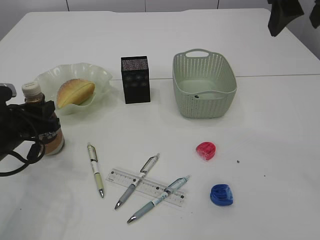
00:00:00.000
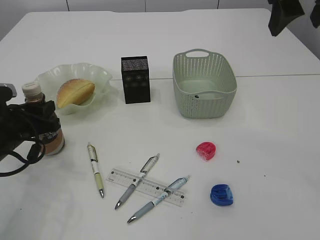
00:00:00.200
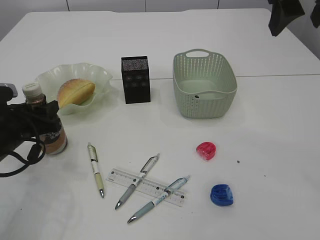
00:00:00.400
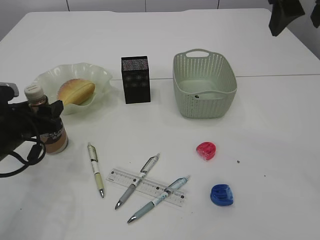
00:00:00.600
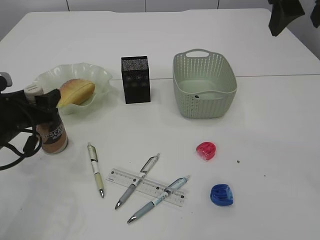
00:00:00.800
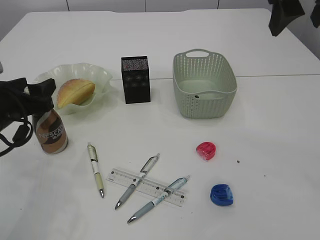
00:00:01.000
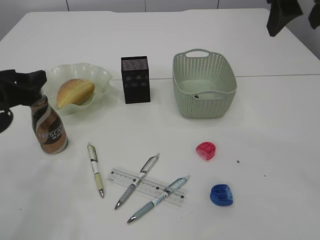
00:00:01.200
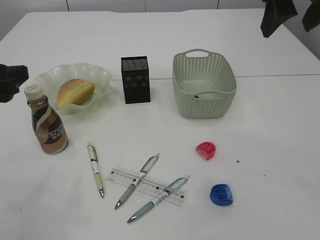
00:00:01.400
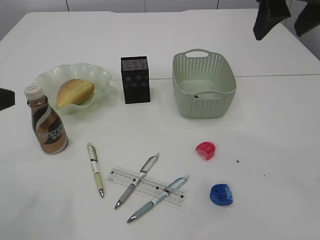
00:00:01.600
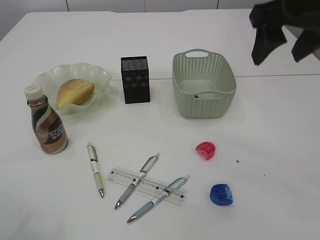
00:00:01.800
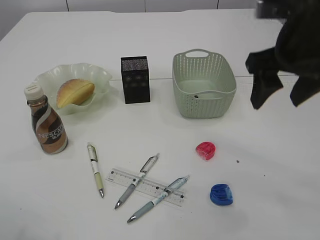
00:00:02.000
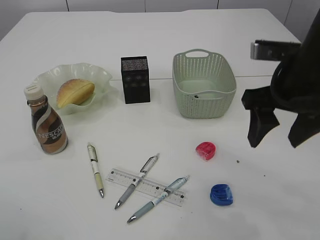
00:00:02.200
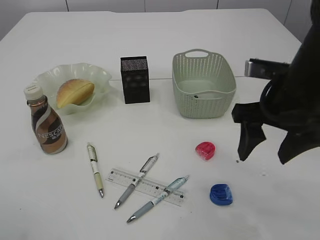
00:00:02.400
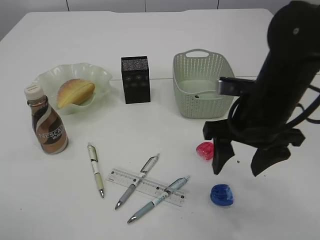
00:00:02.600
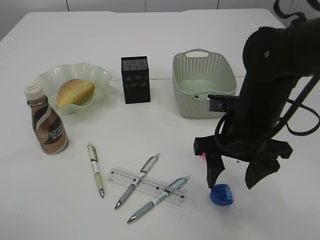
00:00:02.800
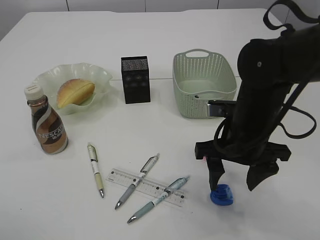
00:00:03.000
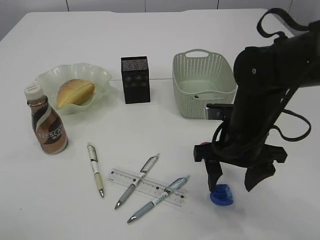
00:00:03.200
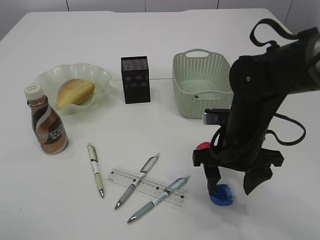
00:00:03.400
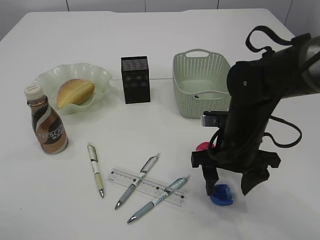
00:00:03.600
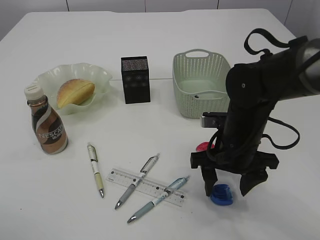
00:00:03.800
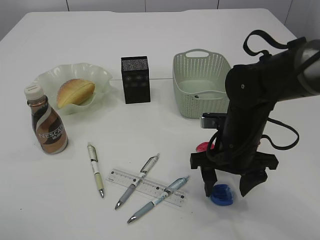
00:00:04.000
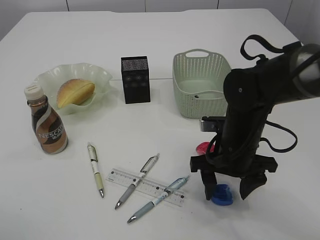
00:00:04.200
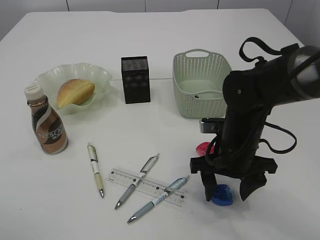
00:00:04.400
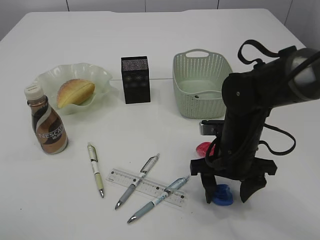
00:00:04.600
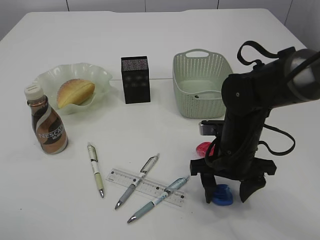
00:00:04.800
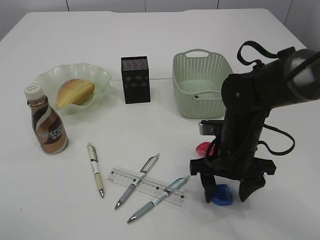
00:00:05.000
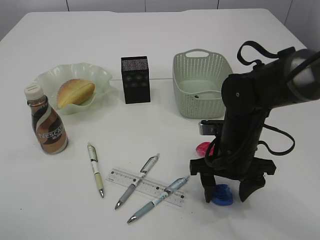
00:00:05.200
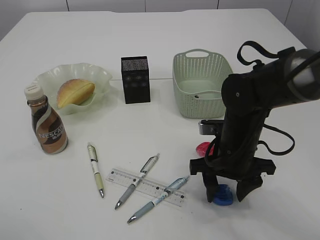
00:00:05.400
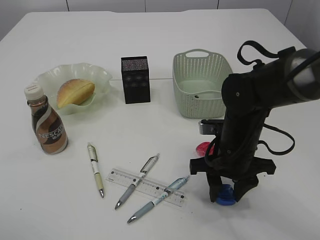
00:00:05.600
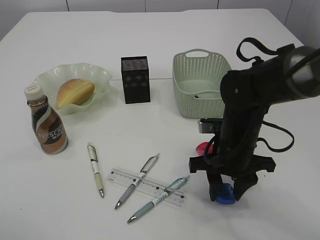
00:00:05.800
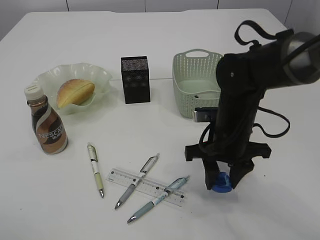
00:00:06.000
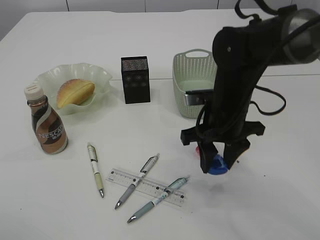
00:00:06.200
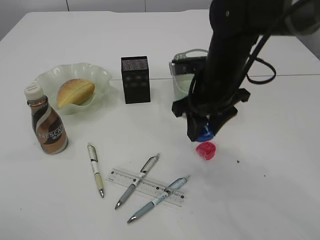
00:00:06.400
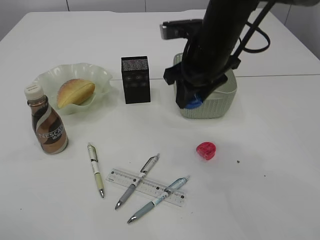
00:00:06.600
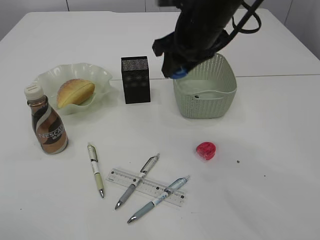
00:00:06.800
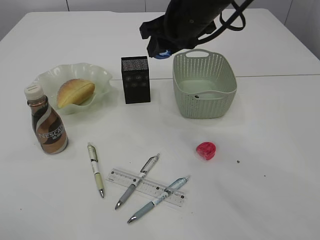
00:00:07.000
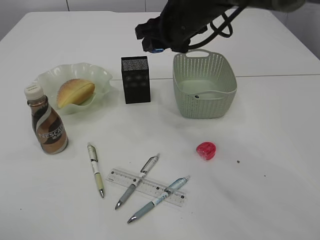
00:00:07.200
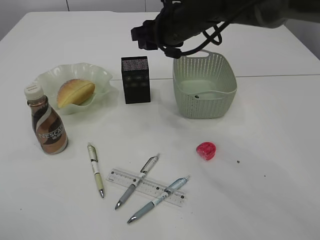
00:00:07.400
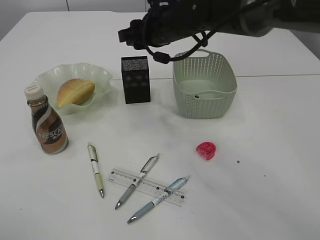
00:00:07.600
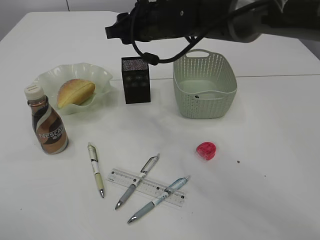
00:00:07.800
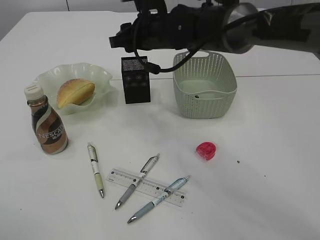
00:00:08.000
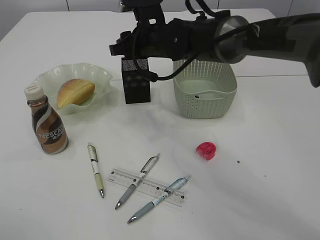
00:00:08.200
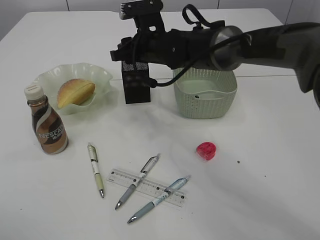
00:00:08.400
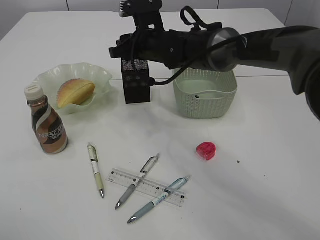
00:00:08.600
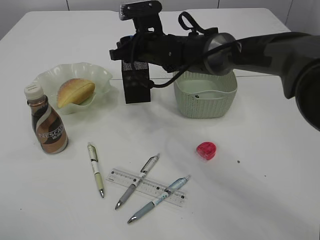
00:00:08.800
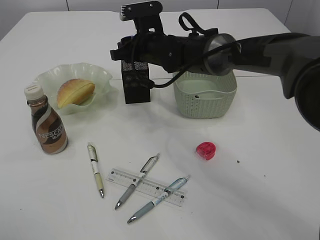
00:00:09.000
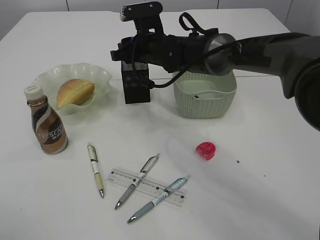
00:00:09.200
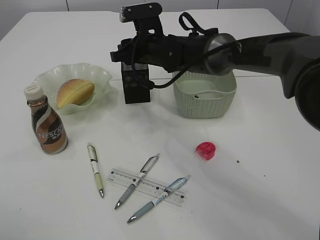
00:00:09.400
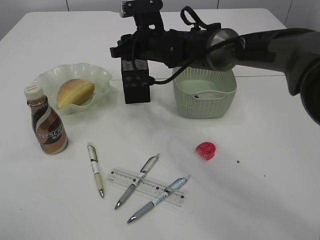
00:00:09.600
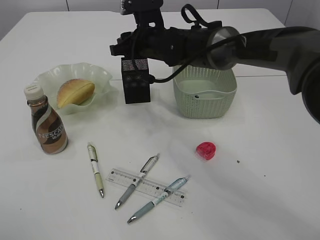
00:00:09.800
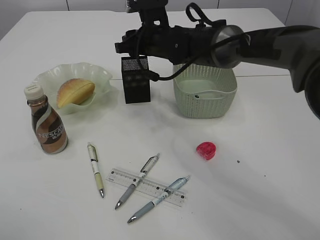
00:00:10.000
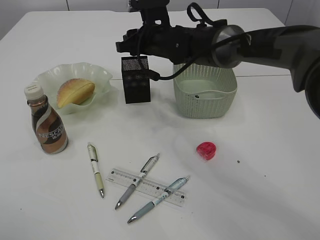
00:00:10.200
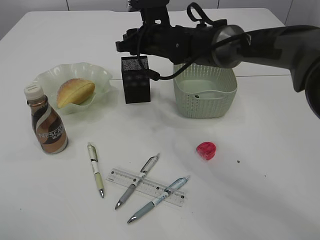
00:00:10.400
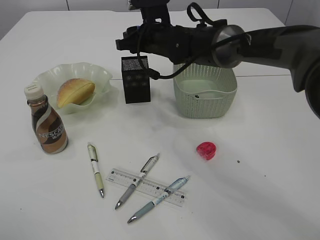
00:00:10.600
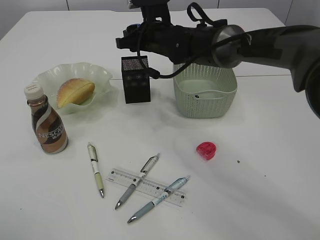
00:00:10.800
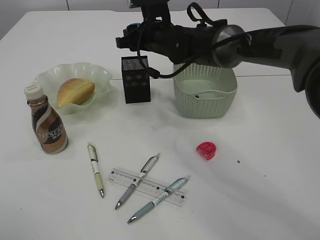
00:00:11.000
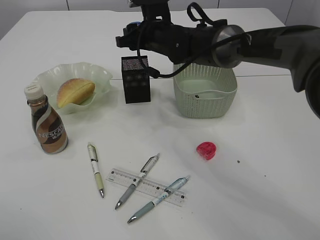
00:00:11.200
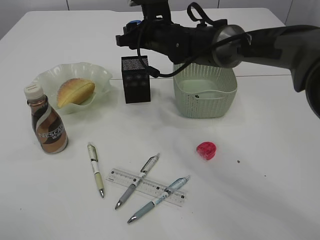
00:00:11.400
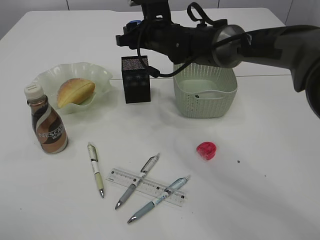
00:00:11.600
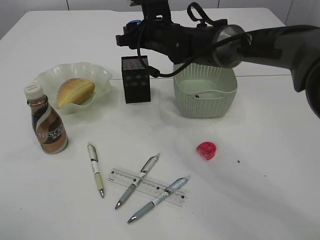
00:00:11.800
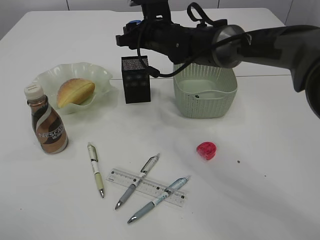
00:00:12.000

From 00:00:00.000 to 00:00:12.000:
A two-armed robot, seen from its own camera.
Step, from 00:00:01.400 to 00:00:06.000: Pick up the blue pencil sharpener.
From 00:00:00.000 to 00:00:01.600: The left gripper travels upward and backward by about 15 cm, and opens its fingers.
From 00:00:01.600 to 00:00:03.000: The right gripper heads downward, covering approximately 20 cm; the left gripper shifts about 10 cm upward.
From 00:00:03.000 to 00:00:04.400: The right gripper is displaced downward by some 5 cm.
From 00:00:04.400 to 00:00:06.000: The right gripper closes its fingers.
From 00:00:06.000 to 00:00:07.600: The right gripper heads forward, upward and to the left, covering roughly 20 cm.
From 00:00:07.600 to 00:00:09.000: The right gripper moves downward, some 5 cm.
From 00:00:09.000 to 00:00:10.400: The grippers make only small movements.
From 00:00:10.400 to 00:00:12.000: Both grippers stay put.

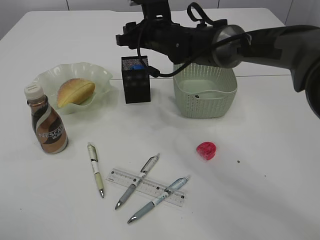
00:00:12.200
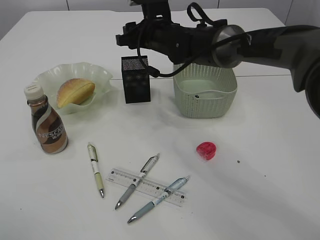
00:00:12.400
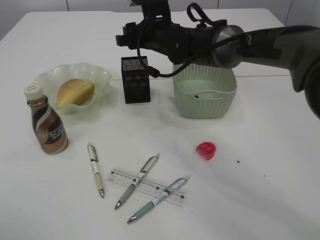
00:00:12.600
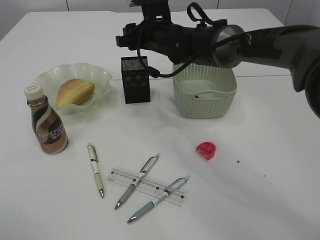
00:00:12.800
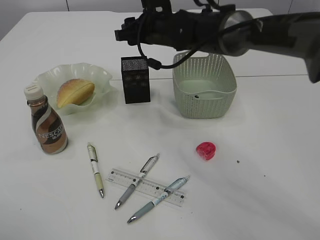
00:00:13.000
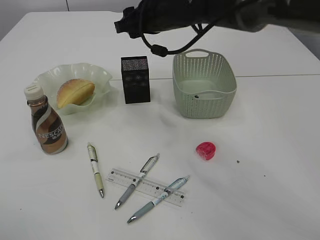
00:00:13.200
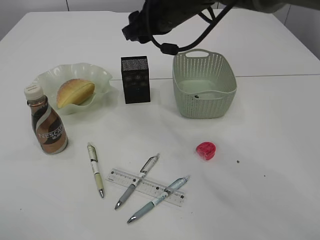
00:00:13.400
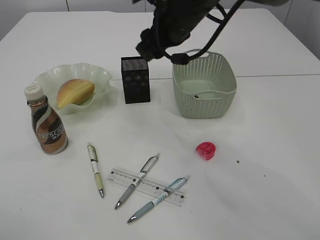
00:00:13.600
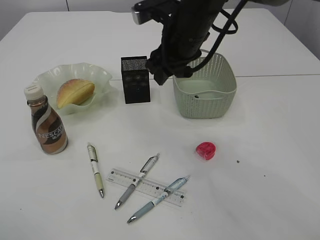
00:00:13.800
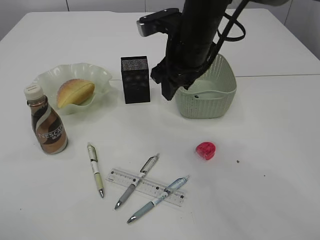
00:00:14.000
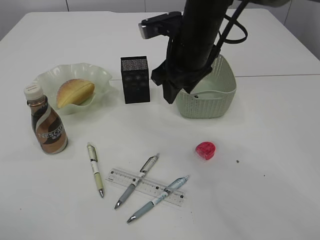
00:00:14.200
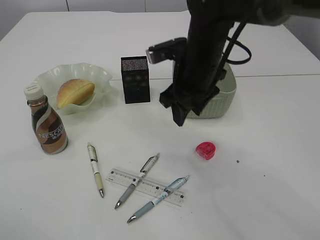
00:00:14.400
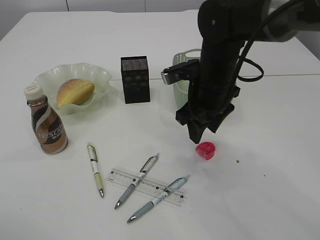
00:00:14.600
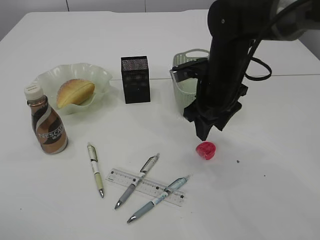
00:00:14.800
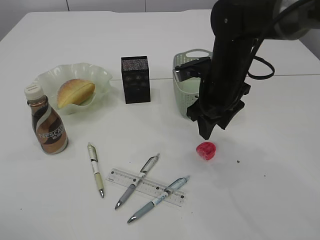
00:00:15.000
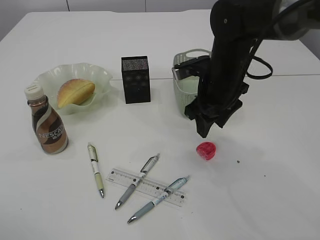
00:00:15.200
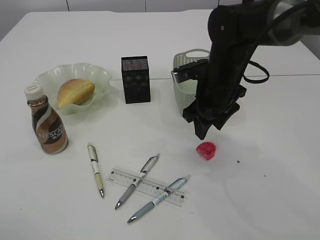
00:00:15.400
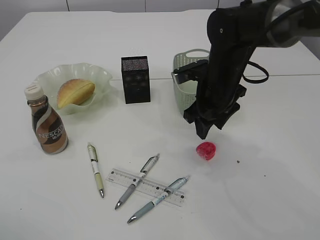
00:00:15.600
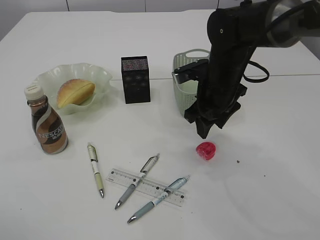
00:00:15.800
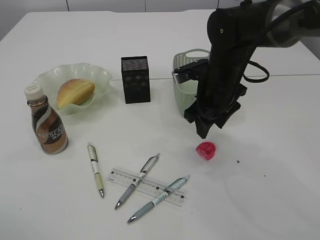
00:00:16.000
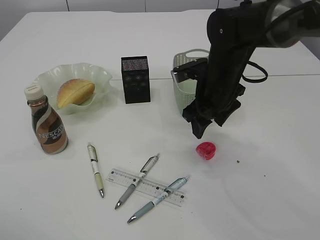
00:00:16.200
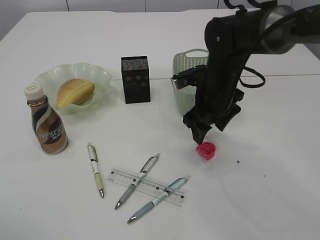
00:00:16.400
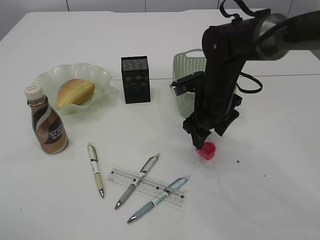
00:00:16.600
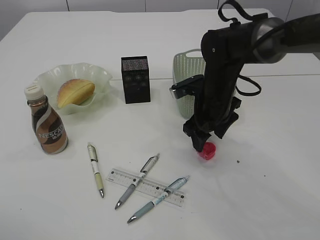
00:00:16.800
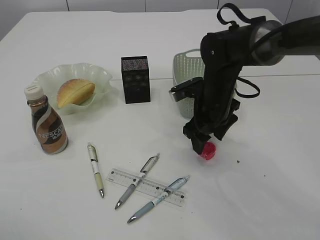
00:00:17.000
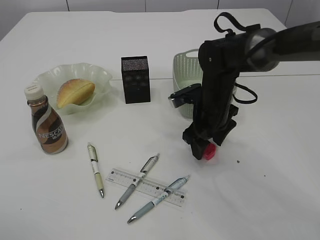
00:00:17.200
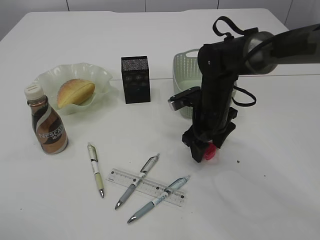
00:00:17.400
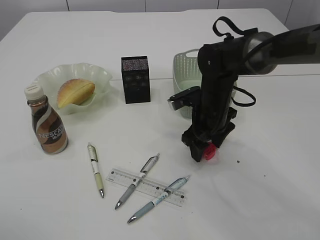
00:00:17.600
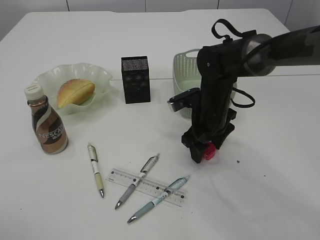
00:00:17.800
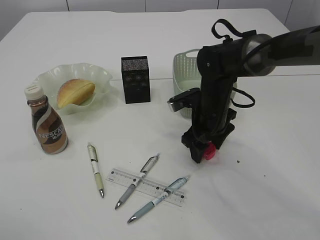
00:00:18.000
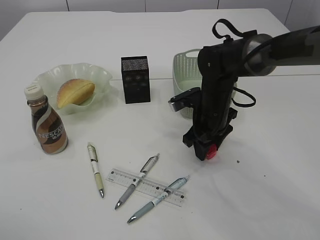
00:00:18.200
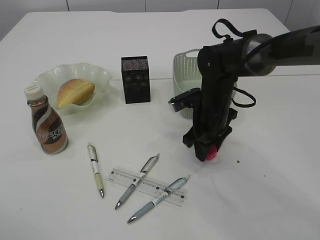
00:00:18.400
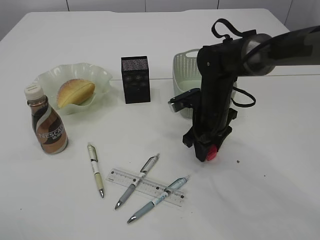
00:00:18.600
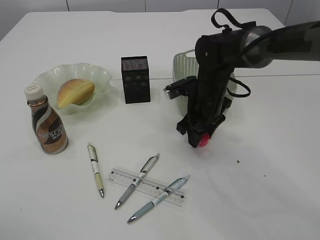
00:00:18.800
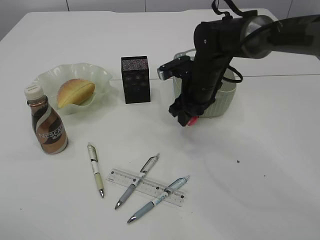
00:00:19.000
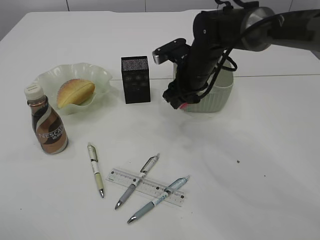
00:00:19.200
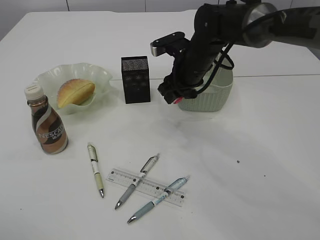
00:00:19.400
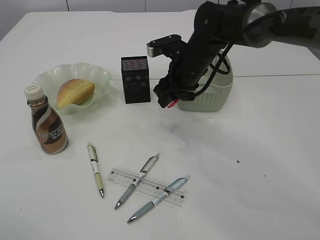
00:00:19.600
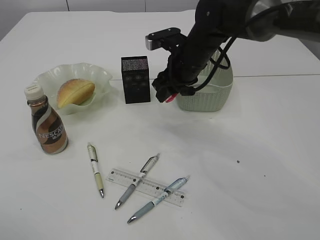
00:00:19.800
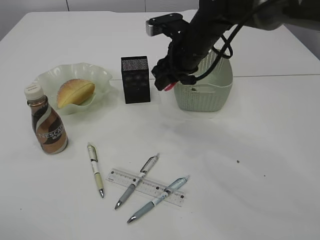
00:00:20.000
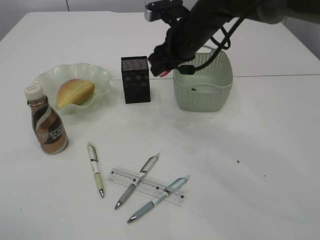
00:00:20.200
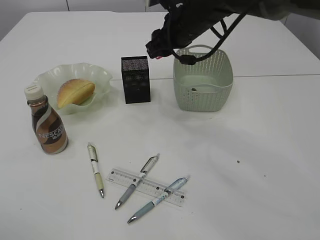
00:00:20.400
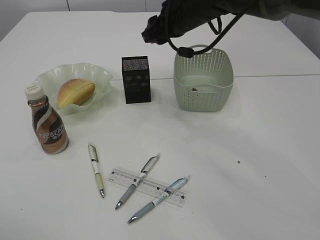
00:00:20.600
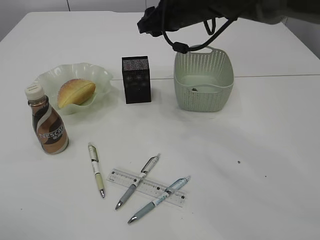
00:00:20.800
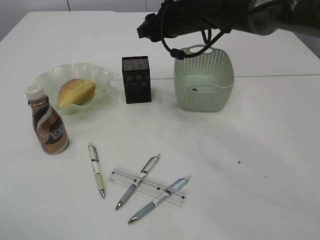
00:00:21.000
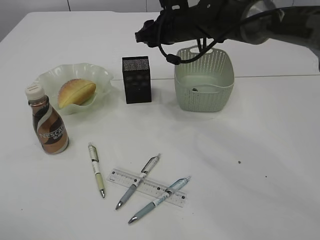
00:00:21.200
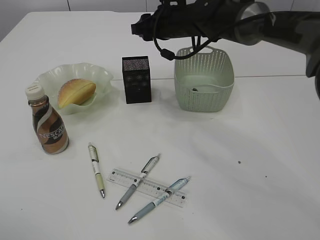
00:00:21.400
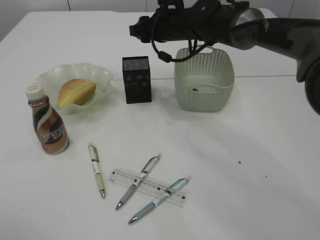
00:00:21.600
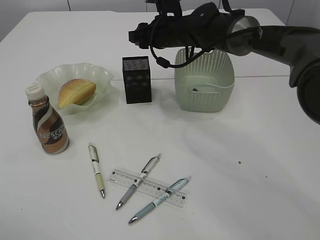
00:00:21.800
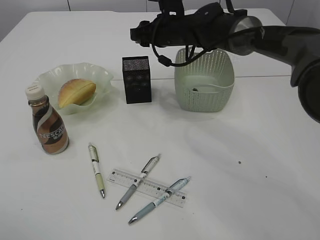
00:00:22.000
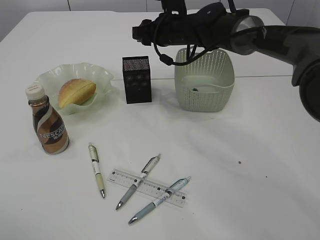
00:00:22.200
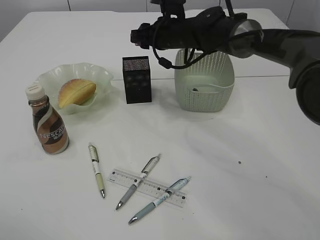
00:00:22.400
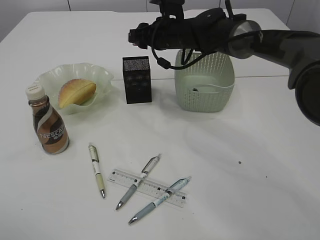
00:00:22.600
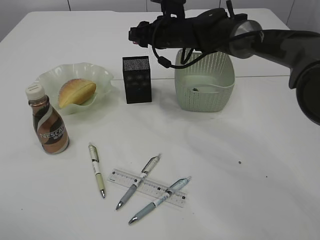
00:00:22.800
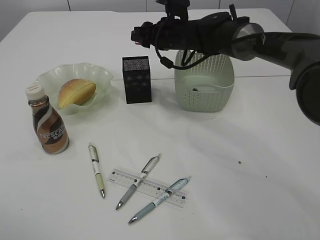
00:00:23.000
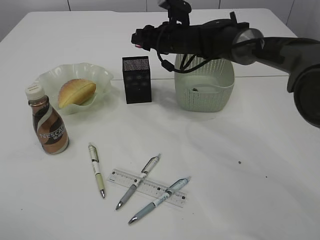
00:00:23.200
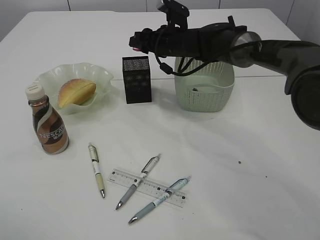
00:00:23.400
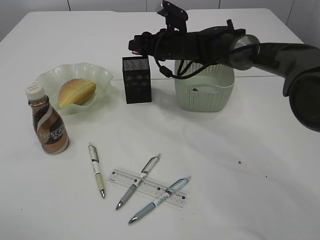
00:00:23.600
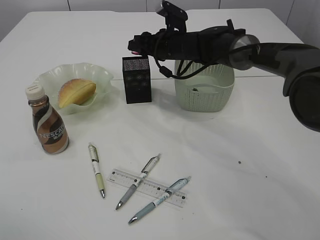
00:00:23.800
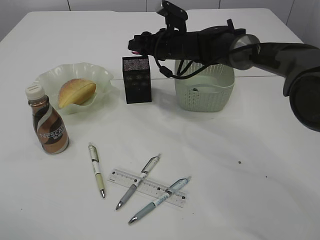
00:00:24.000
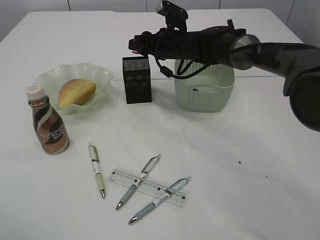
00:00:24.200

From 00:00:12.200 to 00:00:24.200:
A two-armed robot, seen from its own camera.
Step, from 00:00:13.200 to 00:00:18.800: Pick up the red pencil sharpener.
From 00:00:12.200 to 00:00:13.800: The right gripper is displaced backward and upward by approximately 10 cm.
From 00:00:13.800 to 00:00:15.200: The right gripper goes some 10 cm downward and to the right.
From 00:00:15.200 to 00:00:16.600: The grippers move only a little.
From 00:00:16.600 to 00:00:18.200: The grippers make only small movements.
From 00:00:18.200 to 00:00:19.800: The right gripper heads upward, covering approximately 10 cm.
From 00:00:19.800 to 00:00:21.200: The right gripper shifts by roughly 5 cm.
From 00:00:21.200 to 00:00:22.600: The grippers stay close to where they were, moving slightly.
From 00:00:22.600 to 00:00:24.200: The grippers make only small movements.
